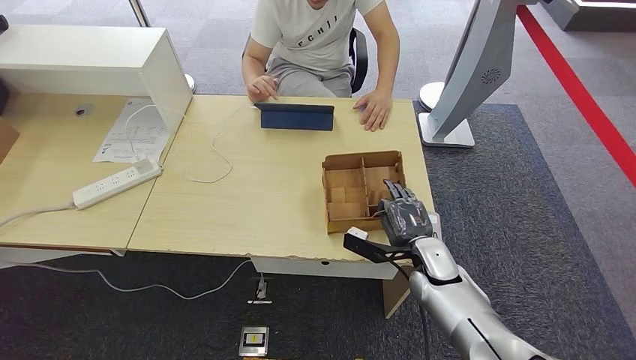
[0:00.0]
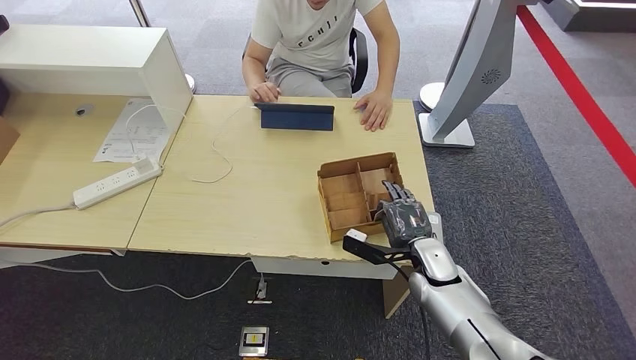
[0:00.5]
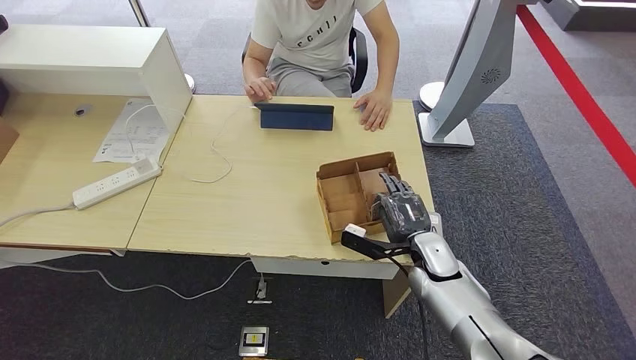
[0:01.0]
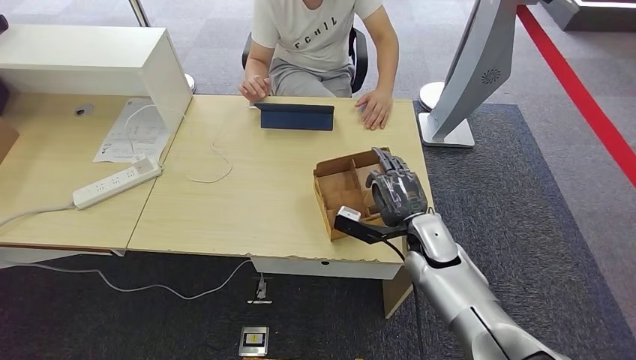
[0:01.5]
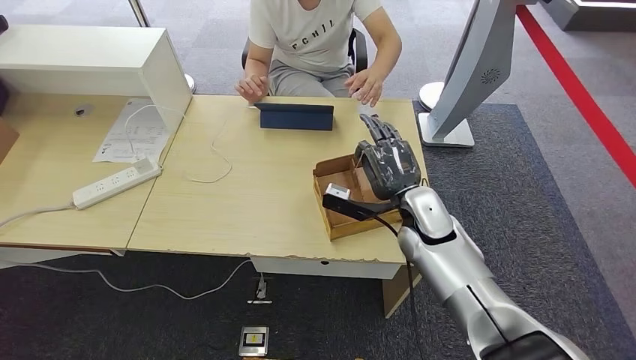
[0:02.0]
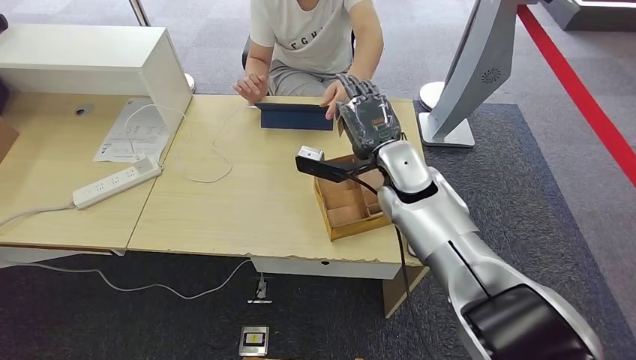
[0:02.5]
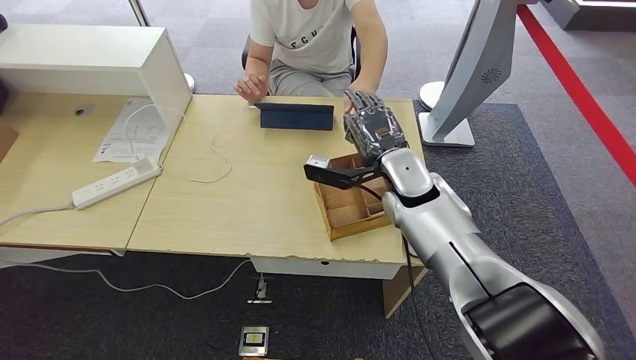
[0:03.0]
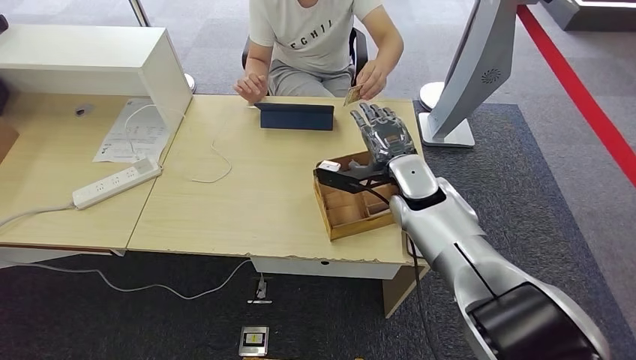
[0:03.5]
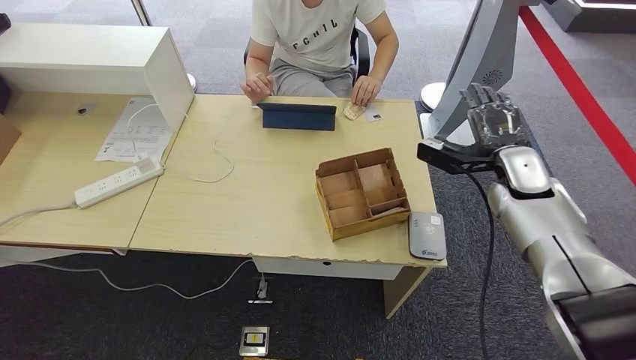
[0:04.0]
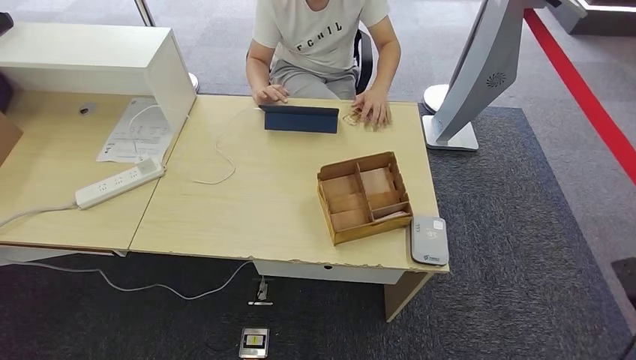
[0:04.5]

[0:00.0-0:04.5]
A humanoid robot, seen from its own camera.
Step, 0:00.0 to 0:02.5: Pick up the room key from the key card box.
Step, 0:03.0 to 0:04.5: Hand the room key to the person.
0:00.0 to 0:02.0: The right hand moves upward, roughly 10 cm.
0:02.0 to 0:04.5: The right hand travels to the right and backward by about 50 cm.
